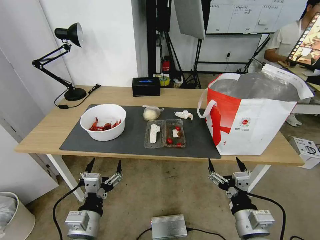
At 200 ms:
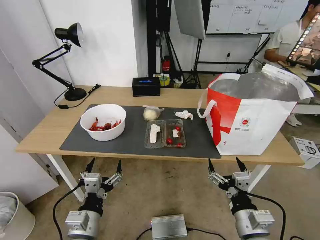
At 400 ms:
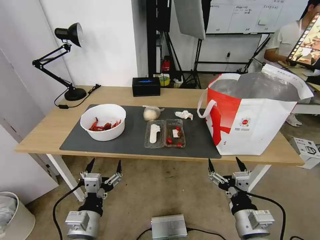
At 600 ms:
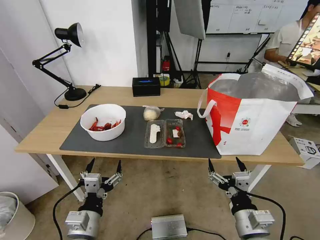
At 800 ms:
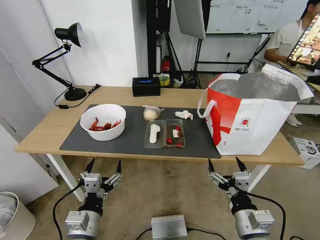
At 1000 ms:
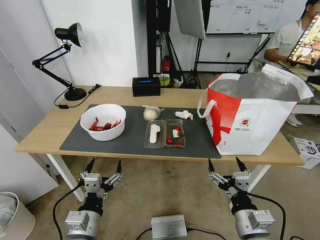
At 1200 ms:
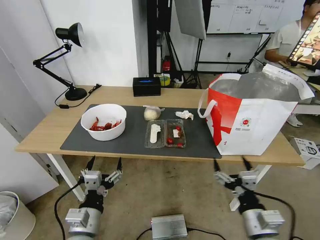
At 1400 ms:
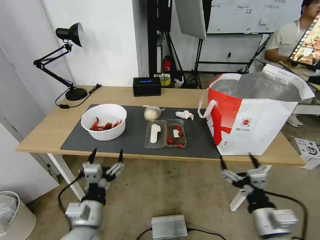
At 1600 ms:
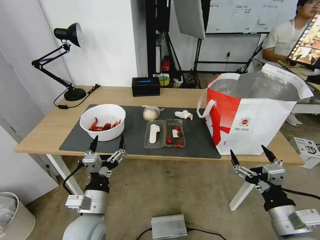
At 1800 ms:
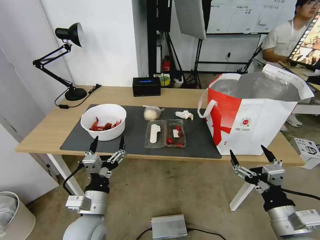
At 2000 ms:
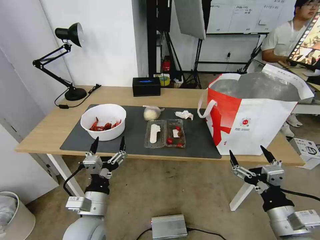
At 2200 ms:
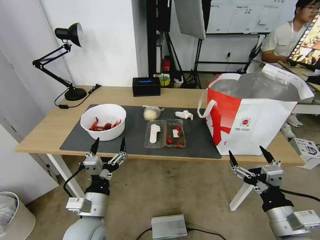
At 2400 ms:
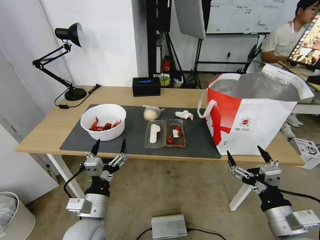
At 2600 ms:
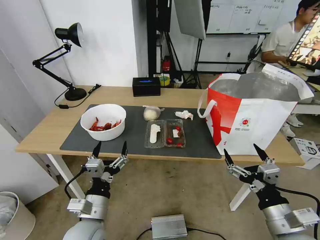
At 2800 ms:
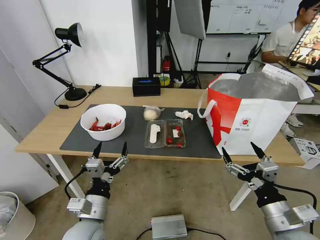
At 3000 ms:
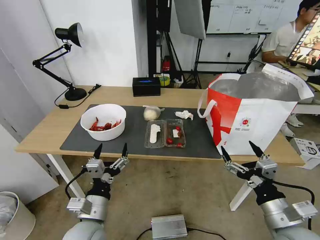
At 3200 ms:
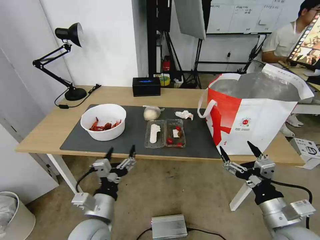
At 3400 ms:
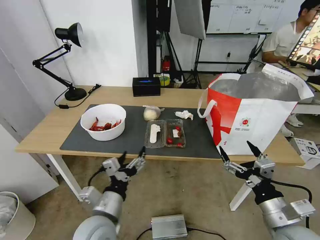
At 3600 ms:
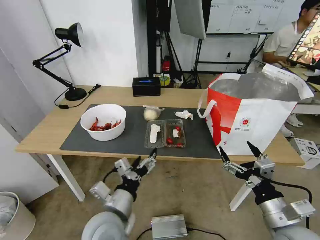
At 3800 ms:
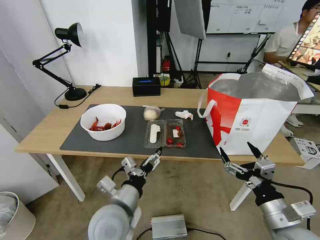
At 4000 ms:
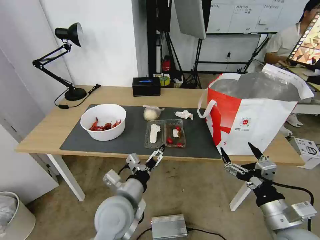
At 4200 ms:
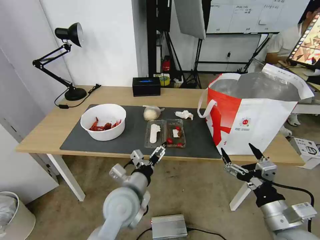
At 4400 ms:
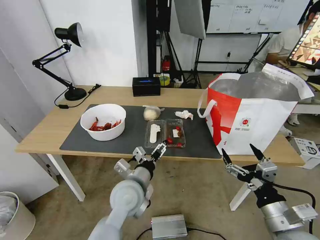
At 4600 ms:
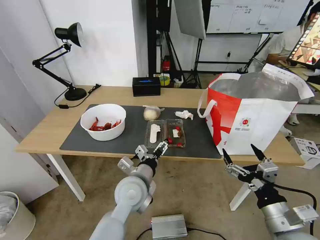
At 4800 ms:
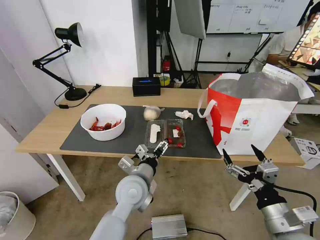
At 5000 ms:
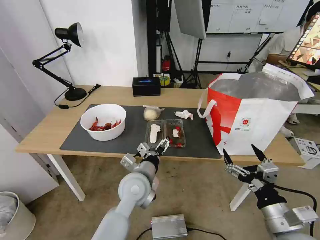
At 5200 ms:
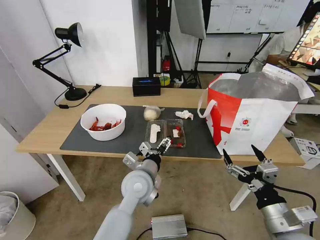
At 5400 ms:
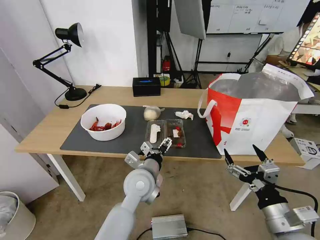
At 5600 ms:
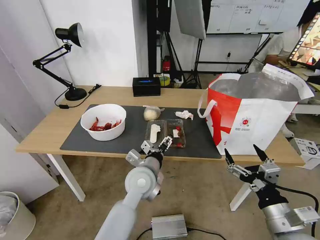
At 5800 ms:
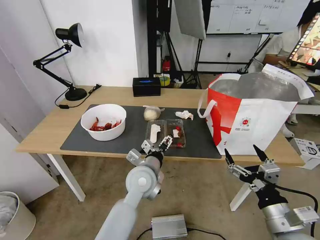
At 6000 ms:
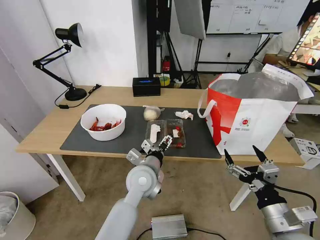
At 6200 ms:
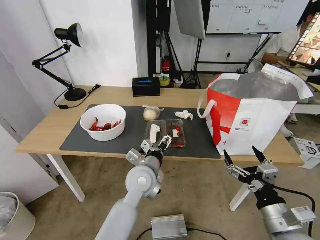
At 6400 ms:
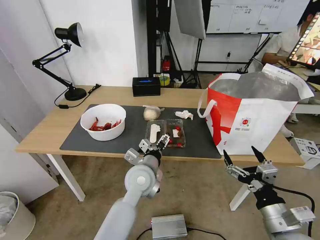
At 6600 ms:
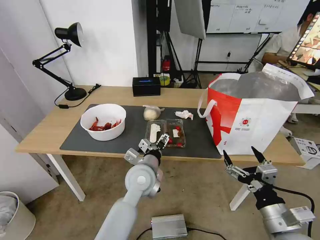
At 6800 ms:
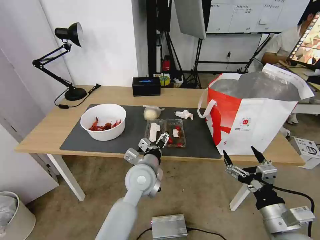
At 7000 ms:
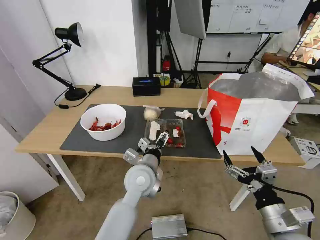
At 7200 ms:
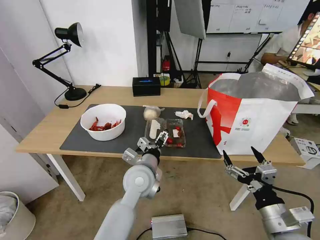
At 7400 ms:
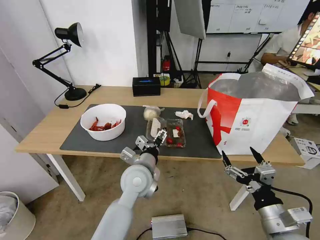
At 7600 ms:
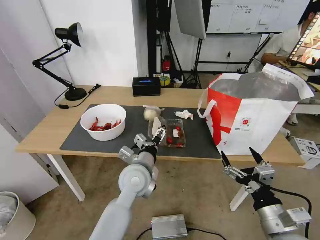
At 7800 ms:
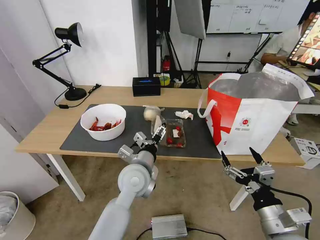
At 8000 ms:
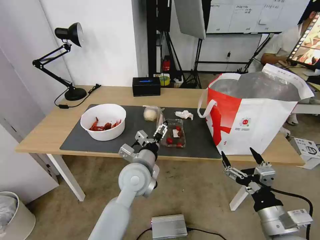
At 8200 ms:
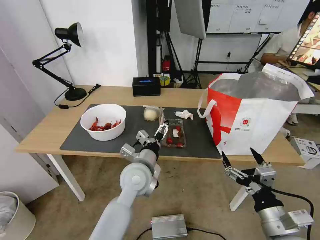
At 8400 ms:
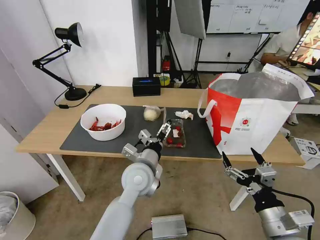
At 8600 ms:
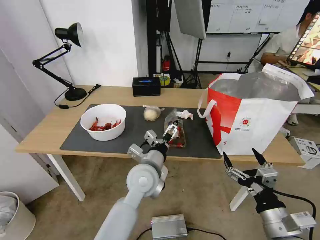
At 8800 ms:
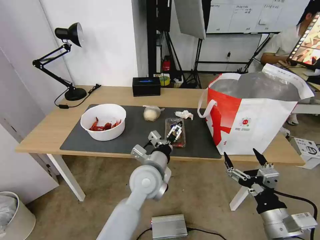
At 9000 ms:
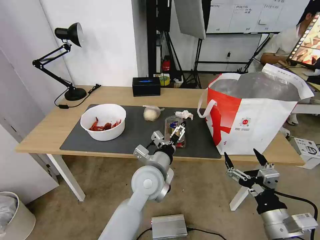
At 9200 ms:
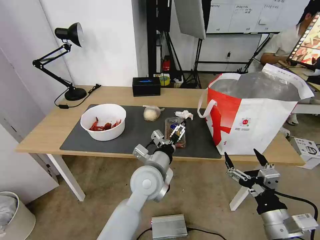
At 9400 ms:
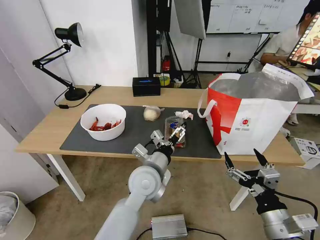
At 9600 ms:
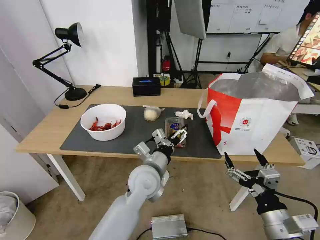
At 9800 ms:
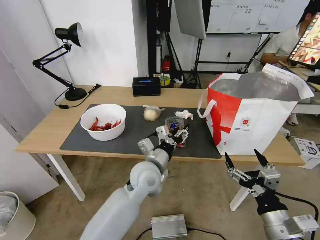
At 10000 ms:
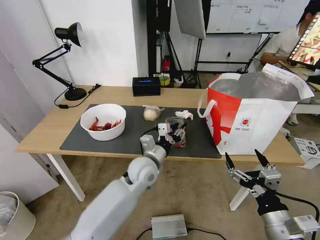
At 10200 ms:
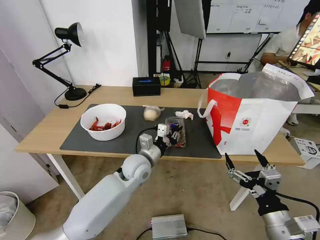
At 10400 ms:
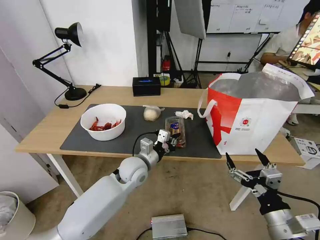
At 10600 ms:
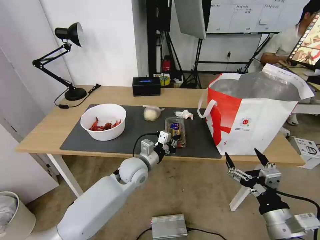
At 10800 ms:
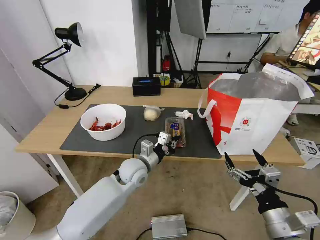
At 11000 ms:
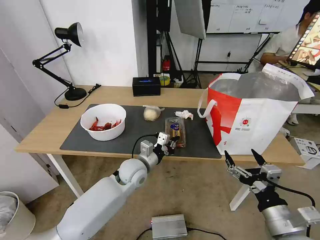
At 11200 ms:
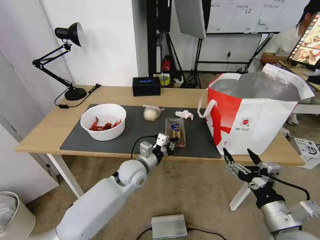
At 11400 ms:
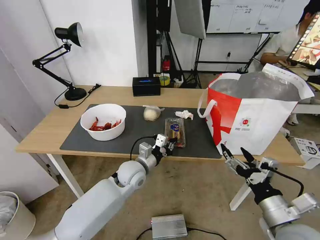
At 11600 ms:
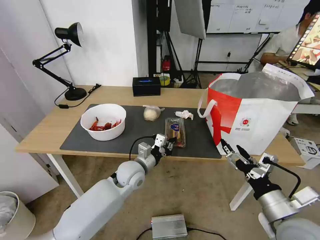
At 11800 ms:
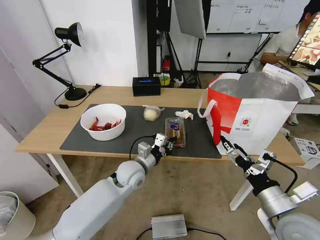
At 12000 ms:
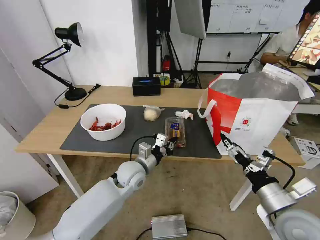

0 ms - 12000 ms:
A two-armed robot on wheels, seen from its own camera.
Task of the whole recording: Pick up the trash from the table and place it into the takeout bag.
1600 ms - 3000 ms: There are only small adjustments of the grippers.
3000 ms - 4400 ms: The left gripper shifts approximately 15 cm forward and to the right.
4400 ms - 6000 ms: The left gripper shifts by roughly 5 cm.
6000 ms - 9000 ms: The grippers stay close to where they were, moving slightly.
9000 ms - 10400 ms: The left gripper heads forward, downward and to the left, covering some 10 cm, and closes its fingers.
10400 ms - 12000 ms: The right gripper is displaced forward by roughly 5 cm.

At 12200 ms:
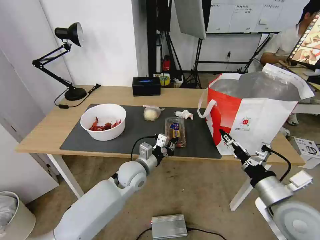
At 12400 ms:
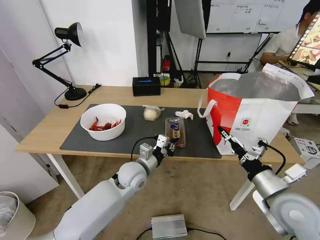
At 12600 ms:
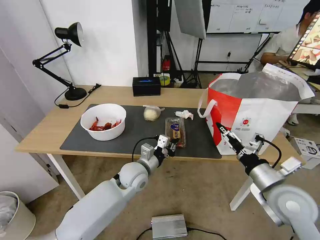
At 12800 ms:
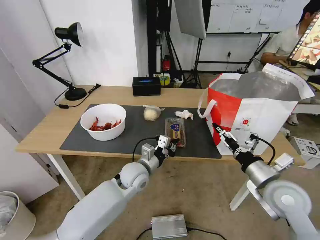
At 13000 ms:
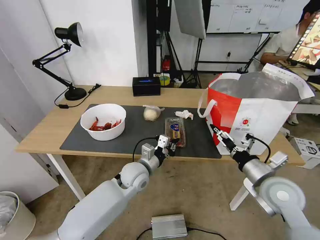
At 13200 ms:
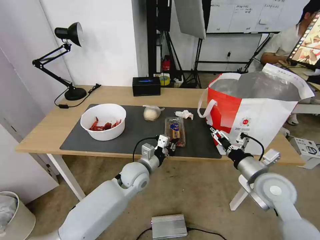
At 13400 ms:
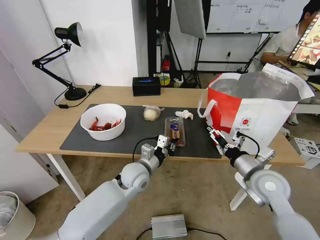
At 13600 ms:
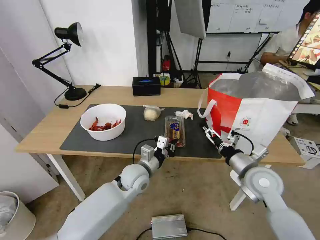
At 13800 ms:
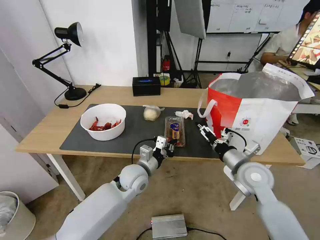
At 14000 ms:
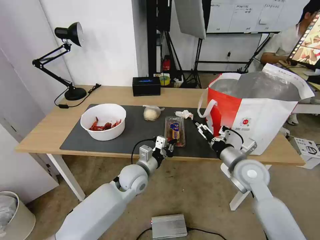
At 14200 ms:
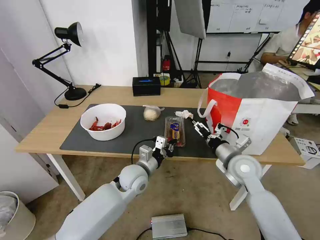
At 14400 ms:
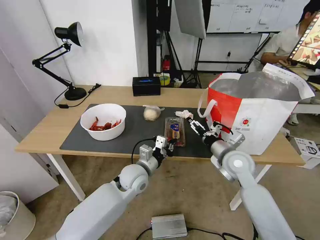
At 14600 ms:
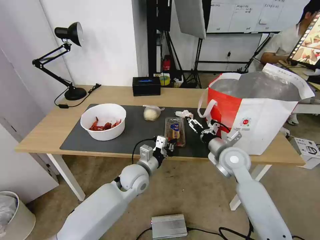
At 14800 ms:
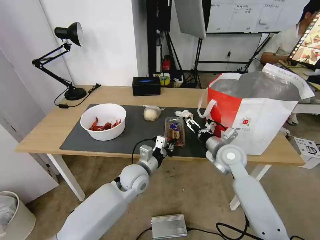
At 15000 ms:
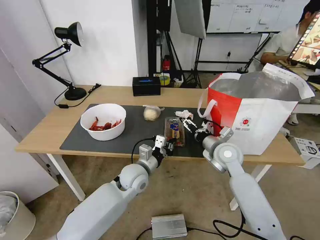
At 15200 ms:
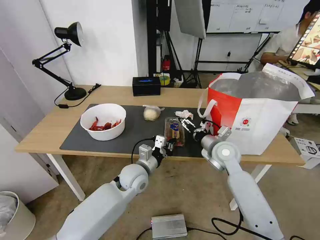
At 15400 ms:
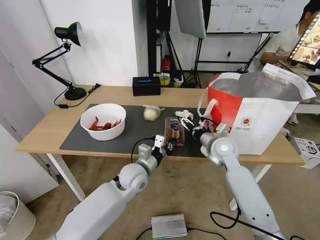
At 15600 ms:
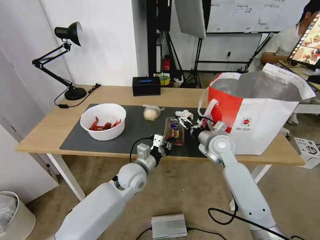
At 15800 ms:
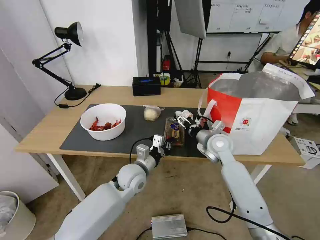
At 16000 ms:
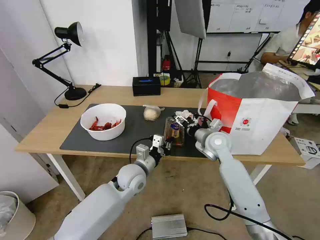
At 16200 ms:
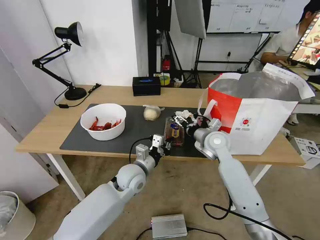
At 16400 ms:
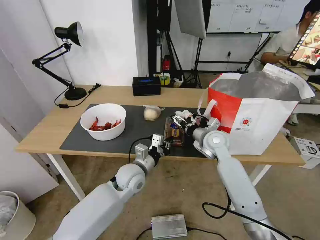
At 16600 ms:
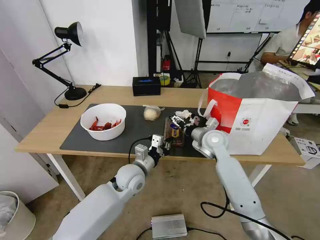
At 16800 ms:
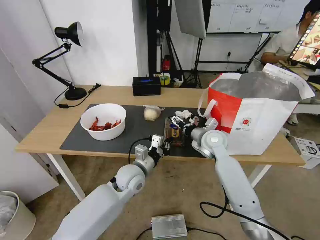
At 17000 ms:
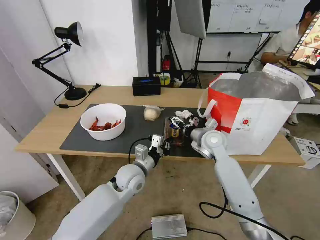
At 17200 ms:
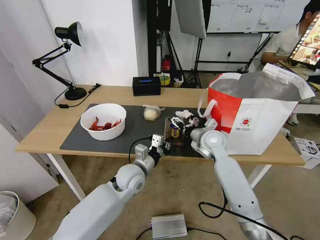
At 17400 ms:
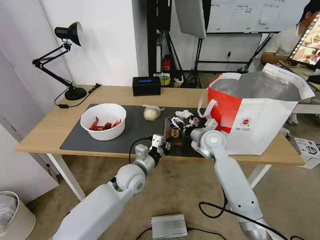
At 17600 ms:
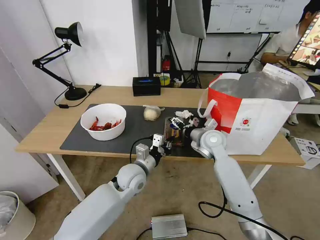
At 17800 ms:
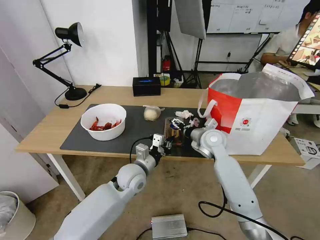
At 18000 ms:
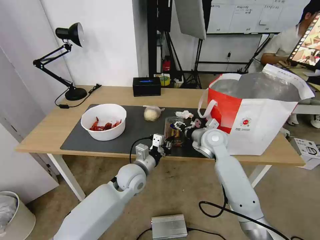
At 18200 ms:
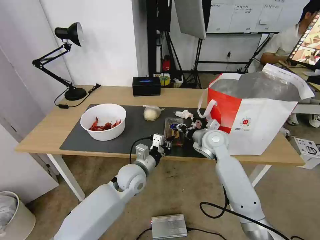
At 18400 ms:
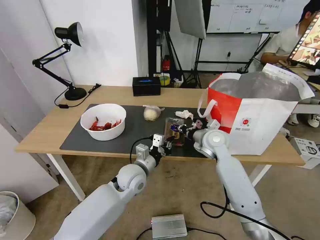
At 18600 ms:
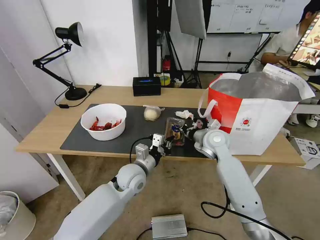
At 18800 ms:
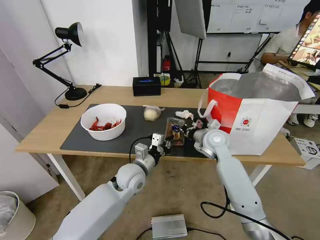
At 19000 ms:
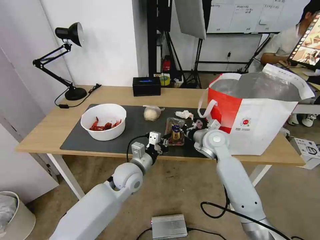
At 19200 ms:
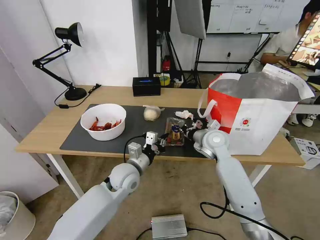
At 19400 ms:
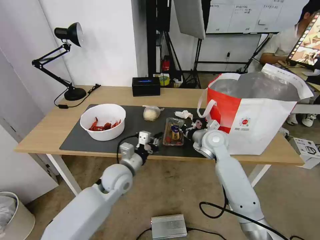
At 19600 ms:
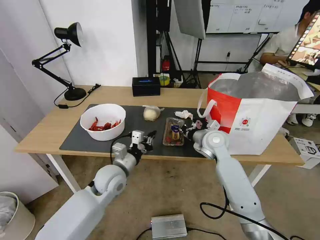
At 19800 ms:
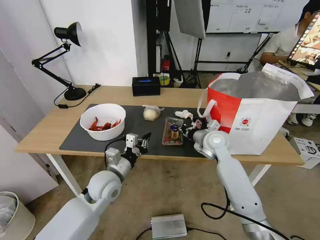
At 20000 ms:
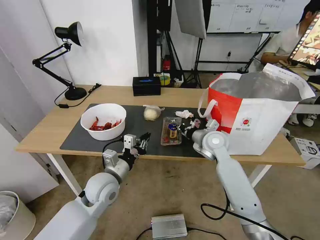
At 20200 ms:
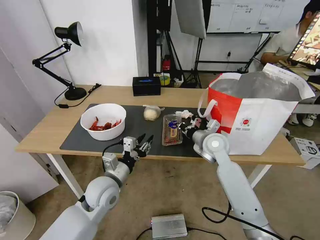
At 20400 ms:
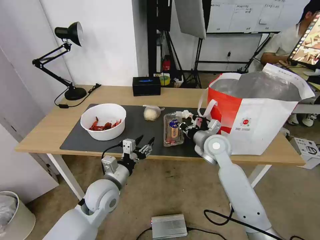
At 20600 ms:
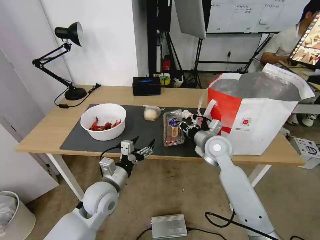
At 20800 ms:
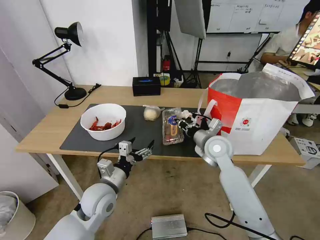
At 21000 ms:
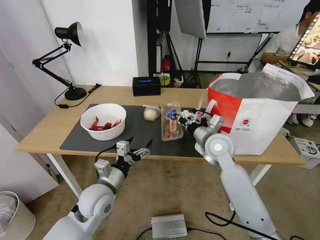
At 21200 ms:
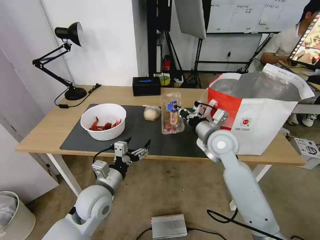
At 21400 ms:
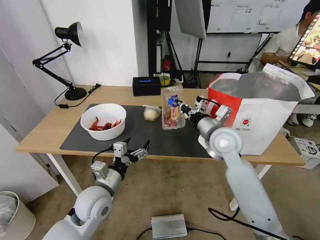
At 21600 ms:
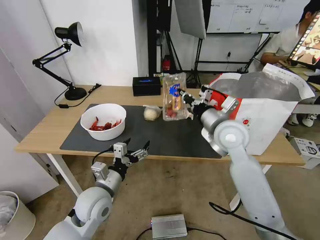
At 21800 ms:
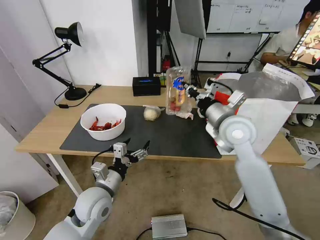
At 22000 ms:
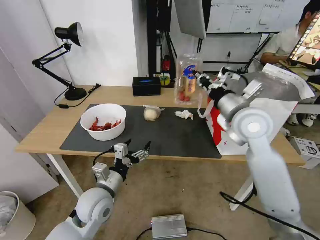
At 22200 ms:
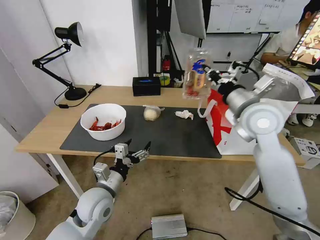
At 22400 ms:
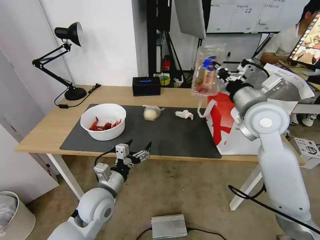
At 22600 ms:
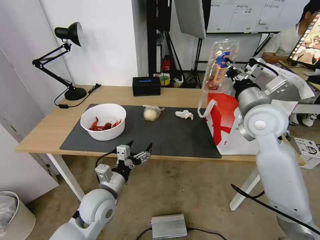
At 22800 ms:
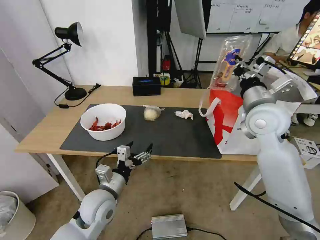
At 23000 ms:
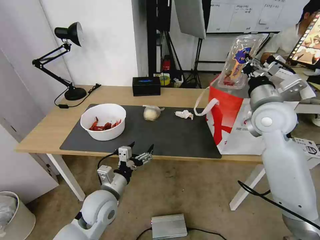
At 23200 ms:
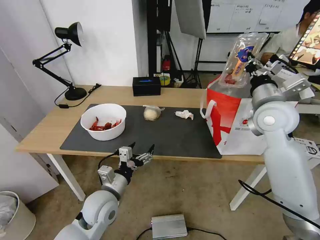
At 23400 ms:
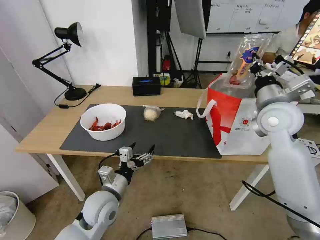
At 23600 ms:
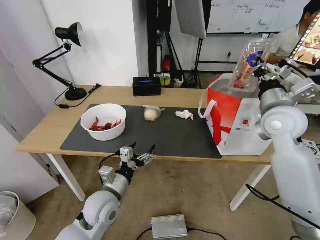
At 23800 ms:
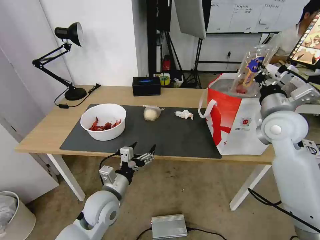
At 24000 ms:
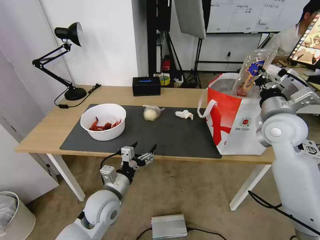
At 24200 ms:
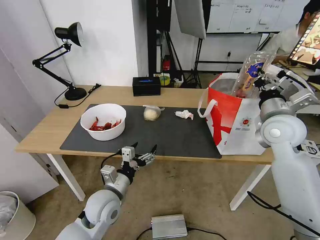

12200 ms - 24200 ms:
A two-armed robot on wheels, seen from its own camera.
Task of the whole recording: Pick up the trash from the table and place it into the takeout bag.
12200 ms - 13800 ms: The right gripper moves forward, some 10 cm.
13800 ms - 15200 ms: The right gripper shifts approximately 10 cm forward and to the left.
15200 ms - 16600 ms: The right gripper moves approximately 5 cm.
16600 ms - 18200 ms: The right gripper closes up.
18200 ms - 19800 ms: The left gripper moves to the left, approximately 10 cm. Meanwhile the right gripper closes.
19800 ms - 21200 ms: The right gripper goes about 5 cm upward. Meanwhile the left gripper changes place by roughly 5 cm, and opens up.
21200 ms - 22600 ms: The right gripper heads upward and to the right, covering approximately 15 cm.
22600 ms - 24200 ms: The right gripper heads to the right, covering roughly 5 cm.
